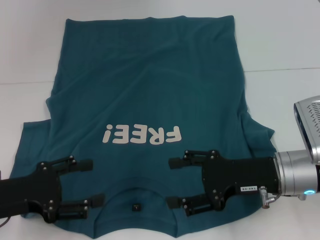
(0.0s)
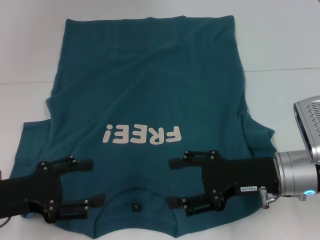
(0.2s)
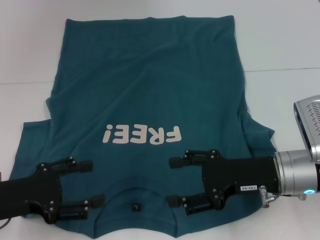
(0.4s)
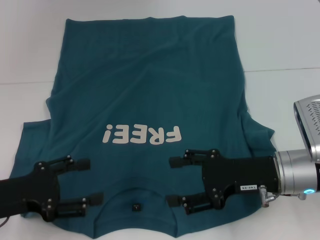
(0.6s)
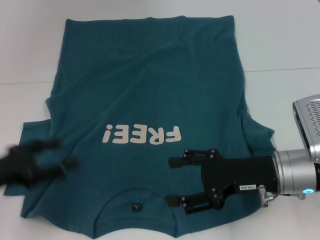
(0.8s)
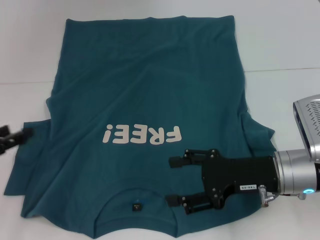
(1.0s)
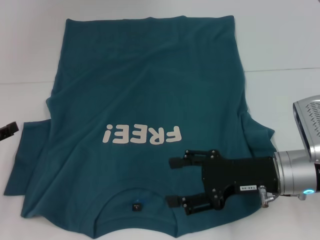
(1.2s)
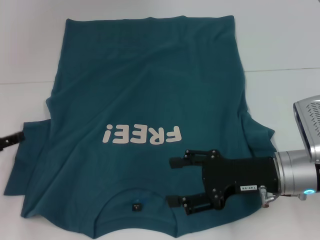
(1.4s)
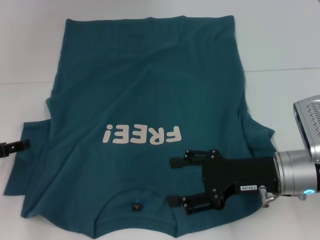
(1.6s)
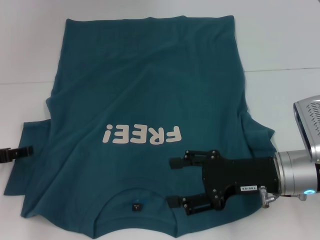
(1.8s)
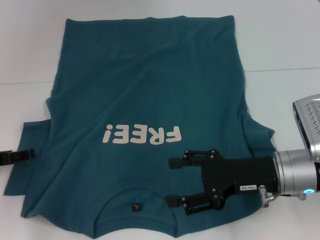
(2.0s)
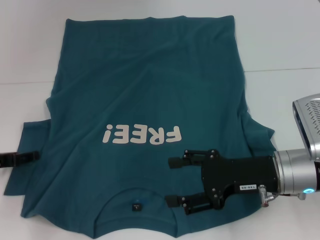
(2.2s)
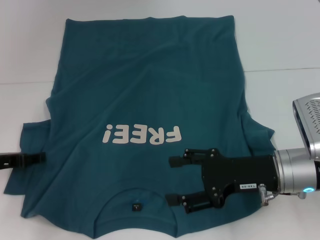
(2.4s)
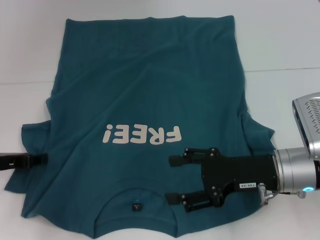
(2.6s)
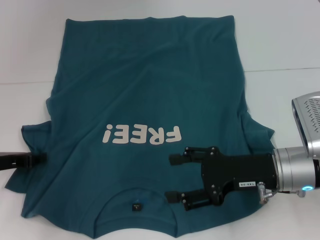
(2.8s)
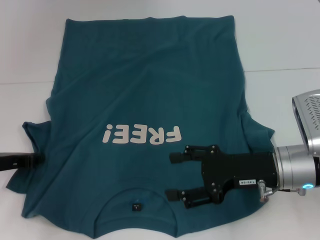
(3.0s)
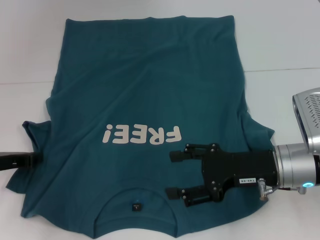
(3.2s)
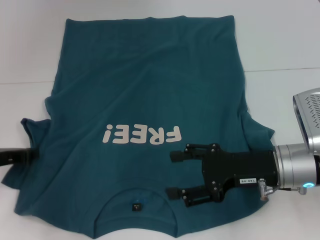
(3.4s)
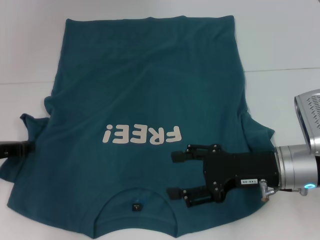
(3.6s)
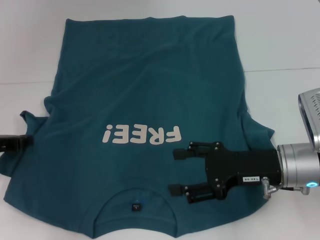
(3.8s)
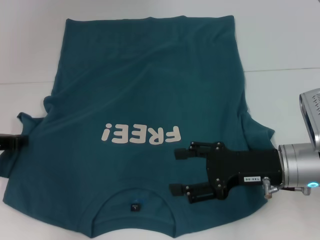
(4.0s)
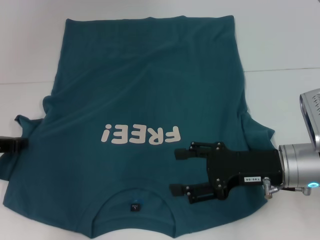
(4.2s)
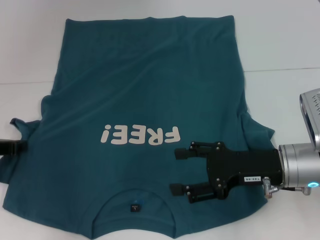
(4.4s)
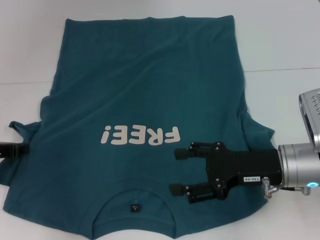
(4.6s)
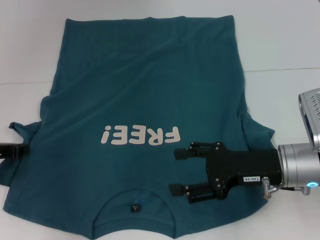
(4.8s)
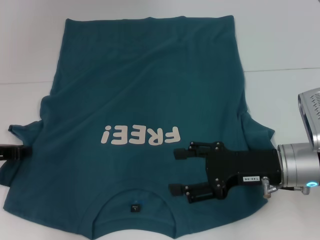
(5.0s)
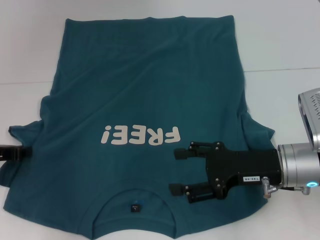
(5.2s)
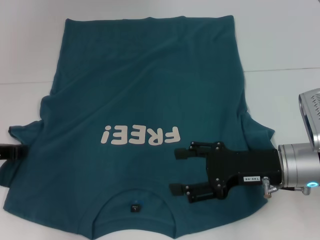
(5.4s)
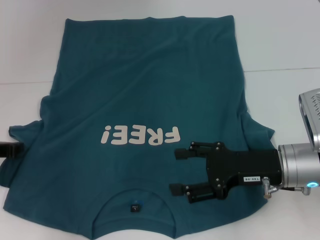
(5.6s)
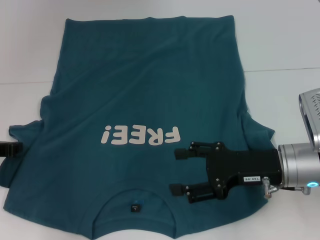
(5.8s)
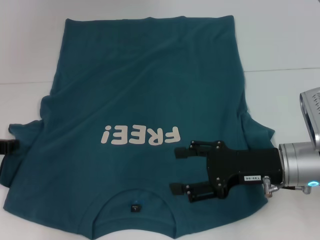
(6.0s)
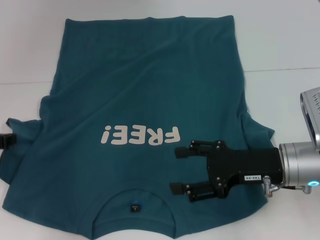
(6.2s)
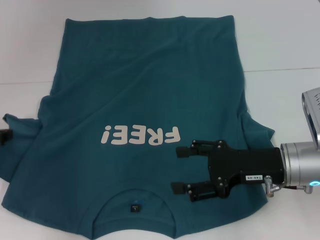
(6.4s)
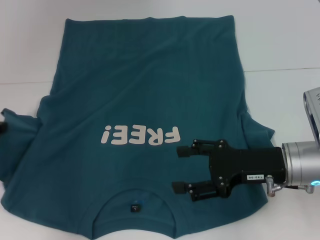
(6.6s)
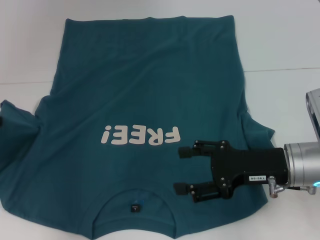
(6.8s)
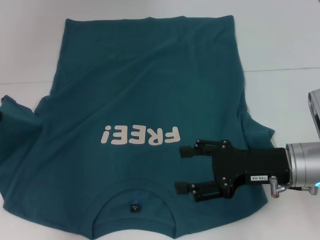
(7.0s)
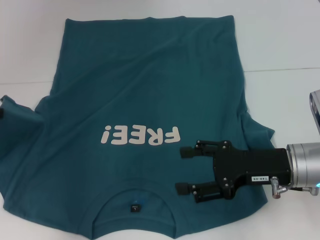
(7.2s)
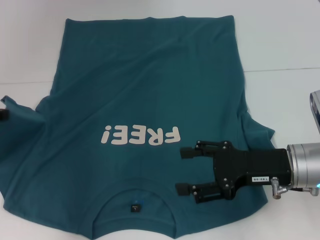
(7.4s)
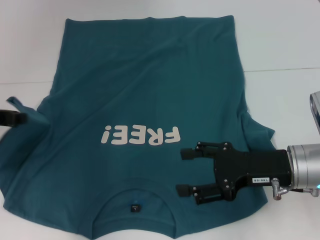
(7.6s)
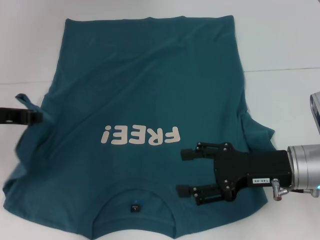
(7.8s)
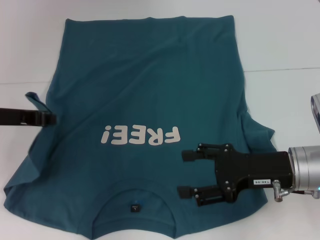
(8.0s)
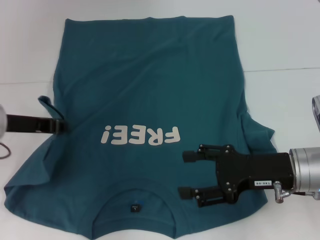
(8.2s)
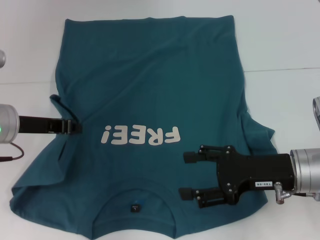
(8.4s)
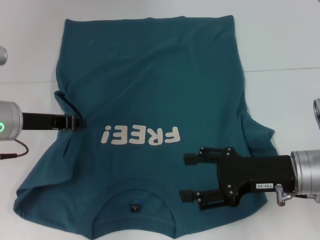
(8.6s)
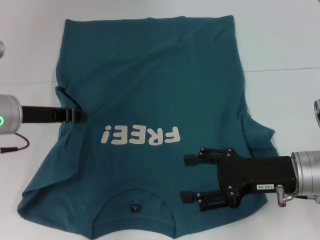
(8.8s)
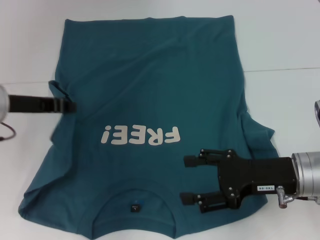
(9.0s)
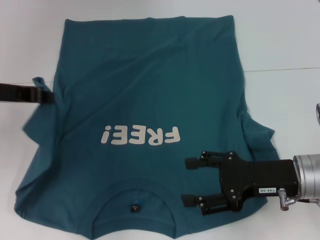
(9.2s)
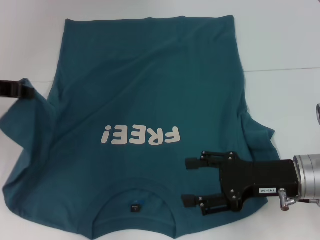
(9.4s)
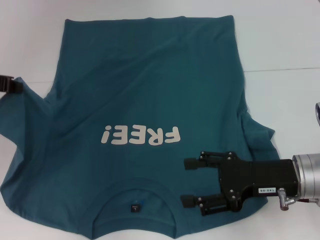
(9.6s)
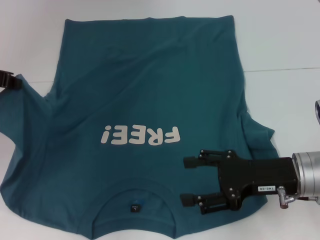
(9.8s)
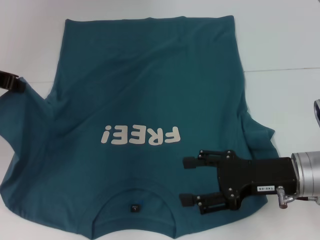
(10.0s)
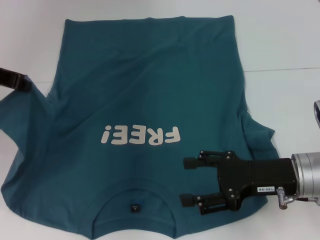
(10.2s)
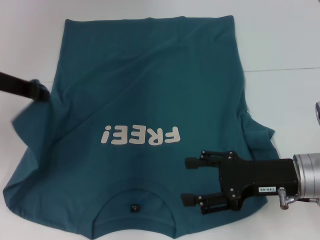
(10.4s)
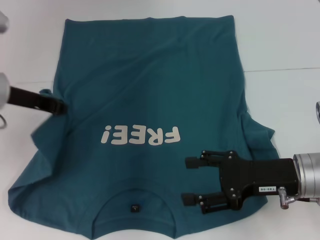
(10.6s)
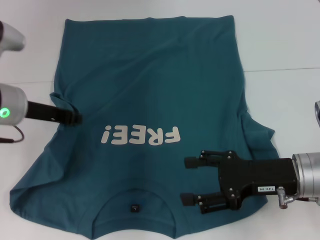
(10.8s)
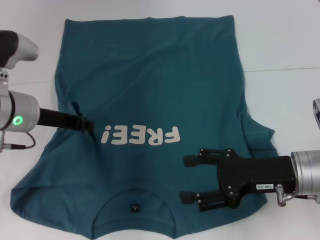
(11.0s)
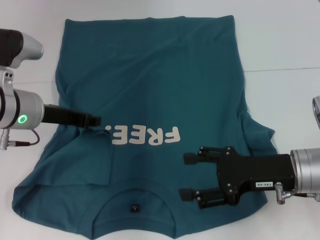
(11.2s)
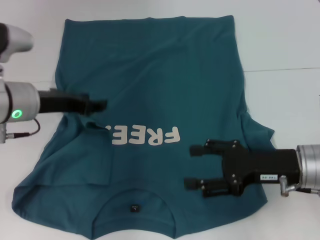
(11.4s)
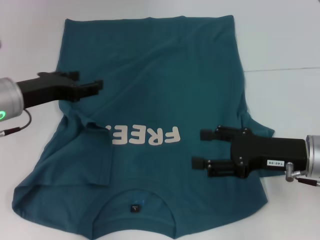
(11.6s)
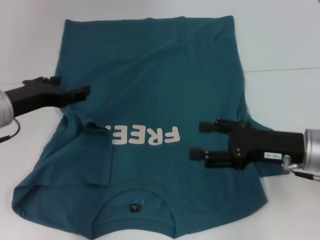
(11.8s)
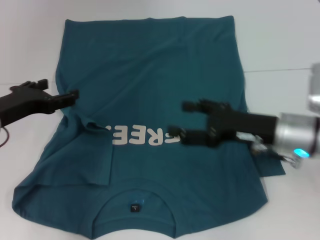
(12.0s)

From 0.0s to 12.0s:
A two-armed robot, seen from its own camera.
From 0.0s to 1.6s: The left gripper moves forward and to the left, approximately 10 cm.
From 1.6s to 3.0s: The left gripper closes up.
From 3.0s to 4.4s: The grippers make only small movements.
From 4.4s to 6.0s: Neither gripper changes place.
From 6.0s to 7.6s: The left gripper is displaced upward by approximately 10 cm.
From 7.6s to 9.0s: The left gripper travels to the right by approximately 5 cm.
From 9.0s to 10.4s: The left gripper shifts approximately 5 cm upward.
From 10.4s to 12.0s: The right gripper travels forward by roughly 5 cm, while the left gripper travels downward by approximately 10 cm, and opens.

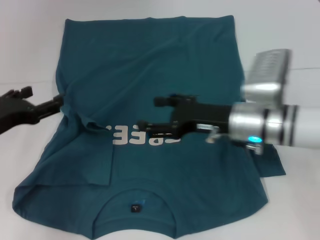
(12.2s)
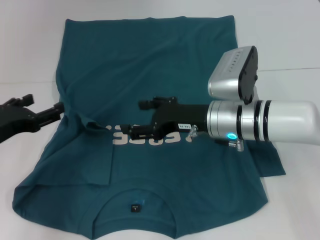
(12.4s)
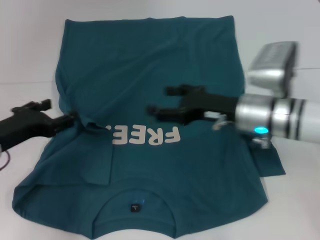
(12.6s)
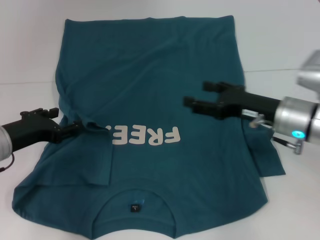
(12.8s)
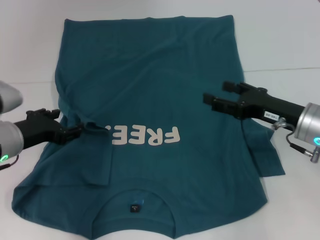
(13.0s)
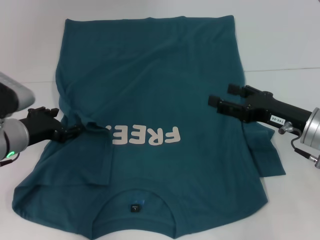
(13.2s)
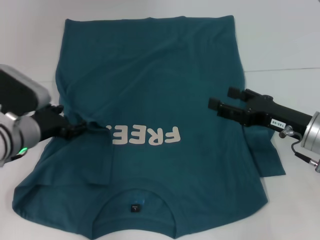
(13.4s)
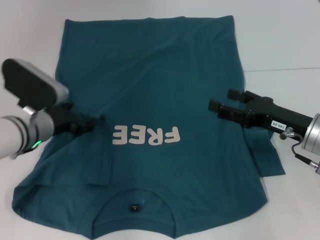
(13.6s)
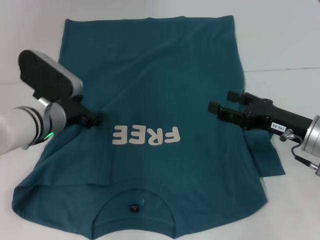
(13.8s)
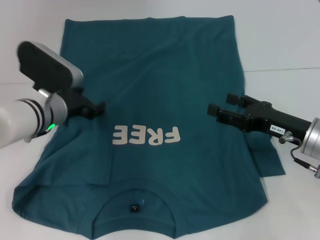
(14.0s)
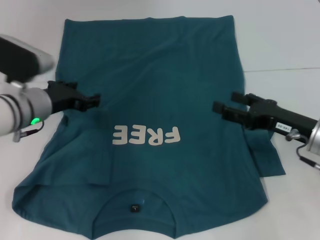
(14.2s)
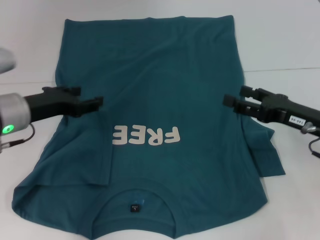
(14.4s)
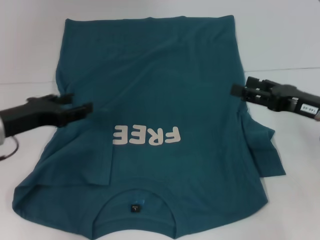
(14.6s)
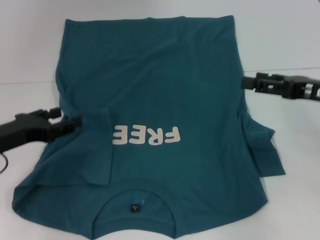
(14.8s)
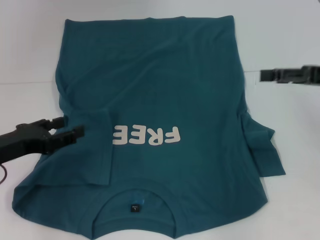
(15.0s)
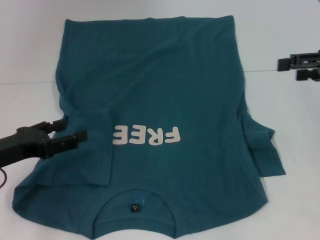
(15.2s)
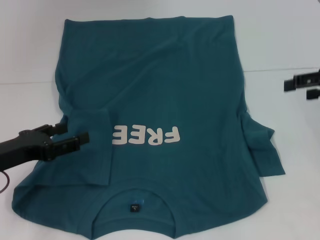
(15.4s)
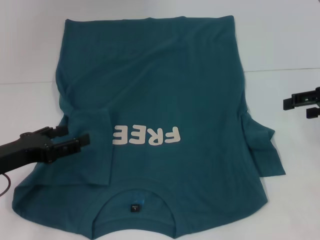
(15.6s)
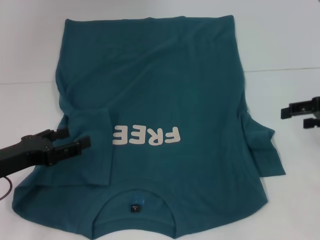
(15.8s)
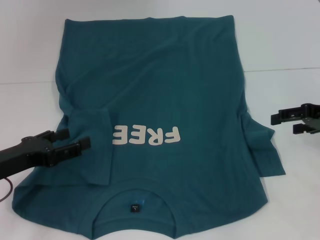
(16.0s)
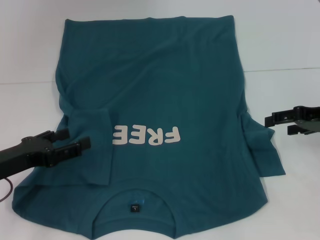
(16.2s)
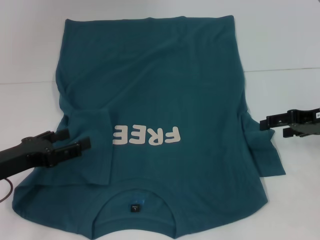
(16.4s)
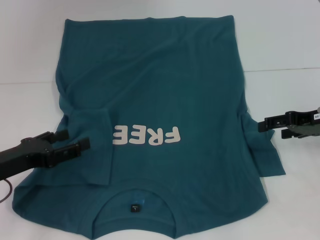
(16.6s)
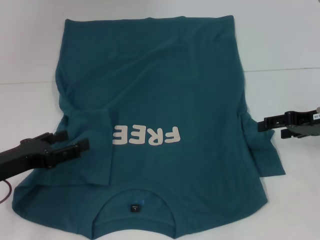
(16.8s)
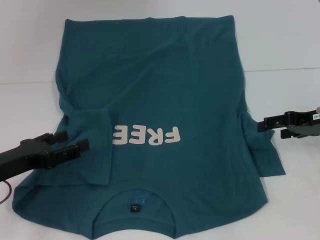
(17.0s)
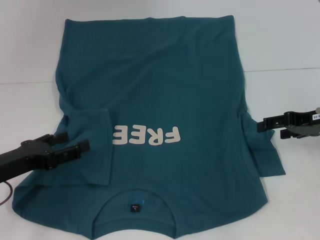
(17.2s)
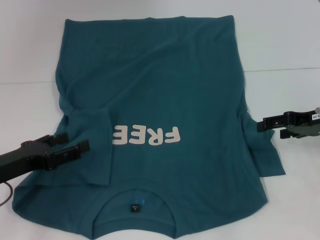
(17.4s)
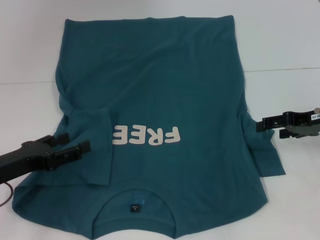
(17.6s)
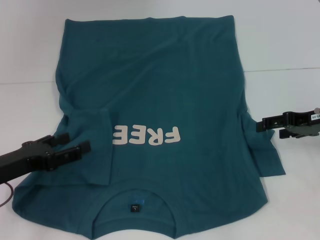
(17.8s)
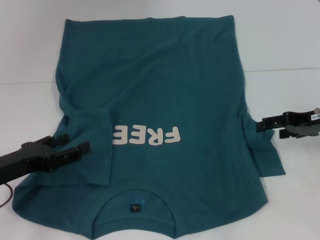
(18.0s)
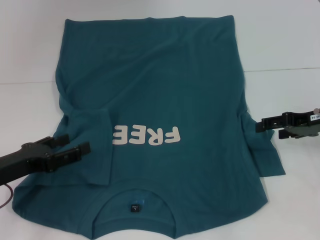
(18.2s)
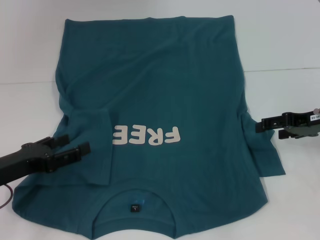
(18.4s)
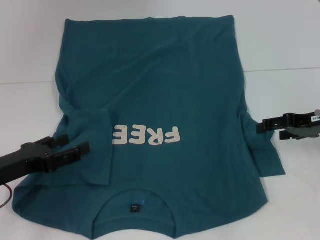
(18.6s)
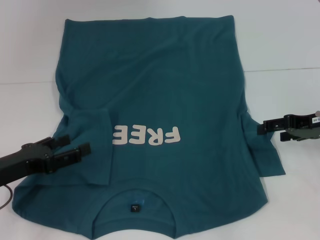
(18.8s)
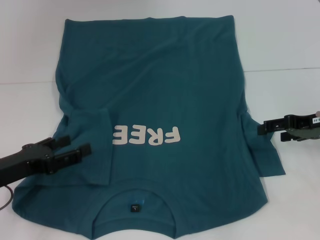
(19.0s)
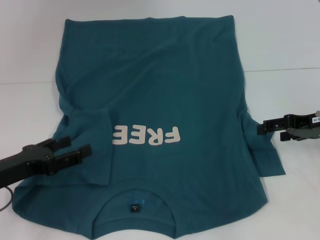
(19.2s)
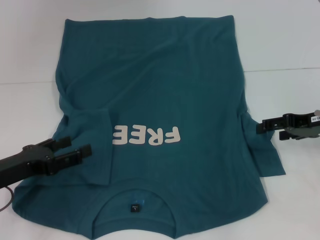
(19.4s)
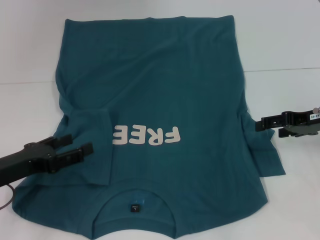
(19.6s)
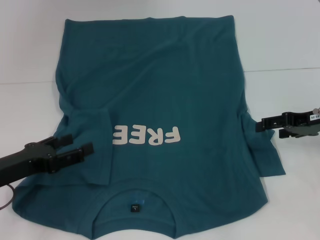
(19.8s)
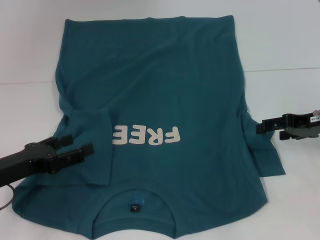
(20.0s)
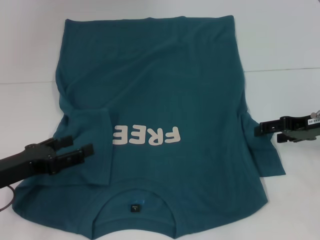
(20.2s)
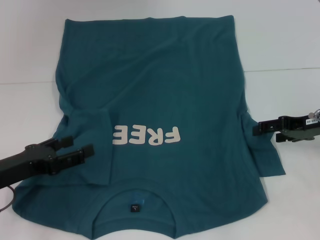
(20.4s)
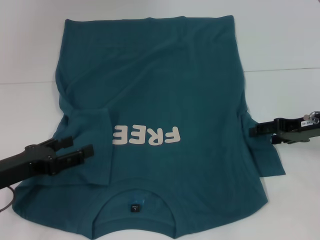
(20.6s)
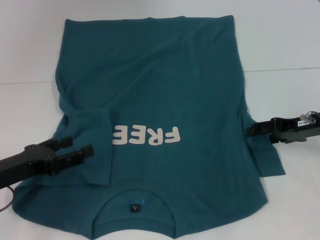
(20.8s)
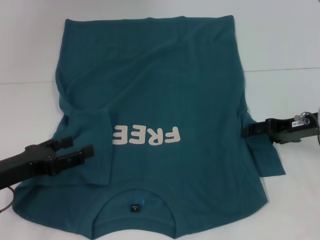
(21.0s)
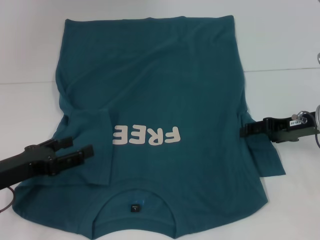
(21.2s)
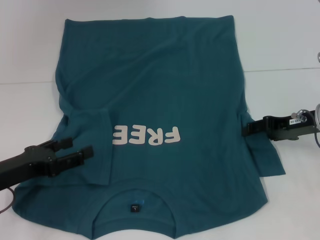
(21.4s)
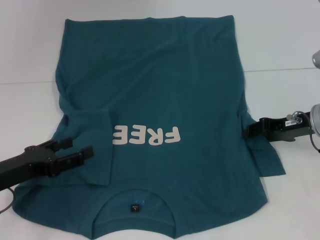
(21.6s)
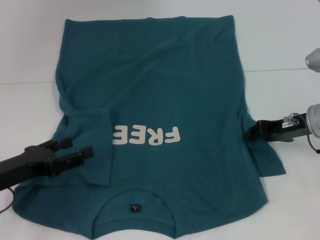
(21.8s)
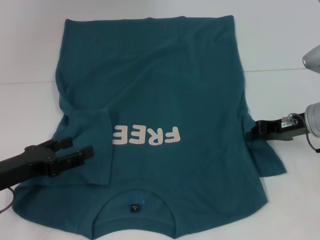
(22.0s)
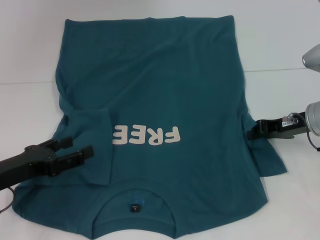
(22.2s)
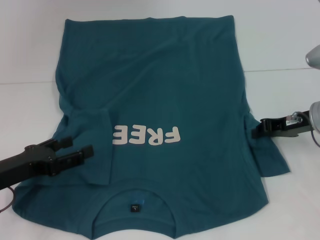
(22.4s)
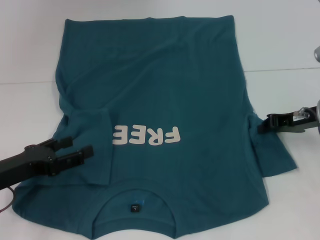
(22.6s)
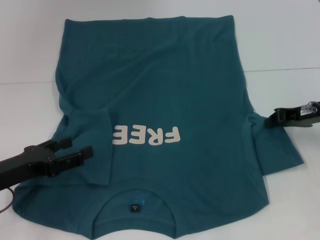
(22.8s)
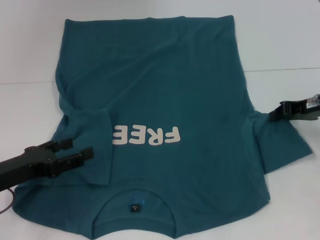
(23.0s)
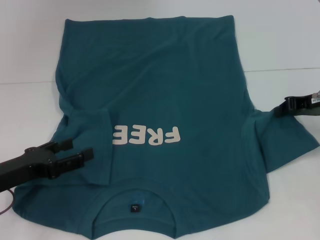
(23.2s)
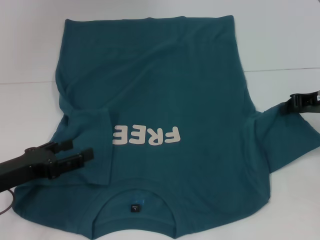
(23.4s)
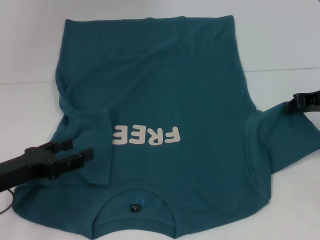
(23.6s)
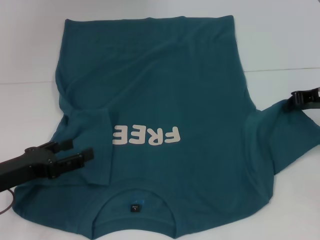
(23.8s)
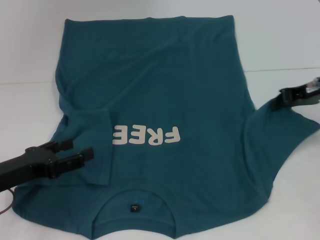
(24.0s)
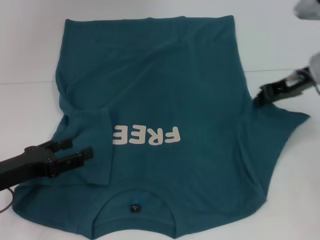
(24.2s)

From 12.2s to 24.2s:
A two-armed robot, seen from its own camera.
Step, from 12.2s to 14.4s: Fold the bottom left sleeve with your left hand.
From 12.2s to 13.8s: The left gripper travels to the right and forward by roughly 15 cm, while the right gripper moves to the right, approximately 10 cm.
From 13.8s to 15.2s: The right gripper moves upward and to the right, some 15 cm. The left gripper heads backward and to the left, covering approximately 15 cm.
From 15.2s to 16.6s: The right gripper moves downward, approximately 10 cm.
From 16.6s to 19.8s: The two grippers keep their place.
From 19.8s to 21.2s: There are only small adjustments of the grippers.
From 21.2s to 22.6s: The right gripper closes its fingers.
From 22.6s to 24.2s: The right gripper travels upward by about 5 cm.
